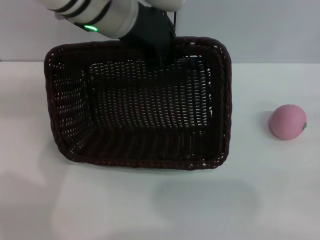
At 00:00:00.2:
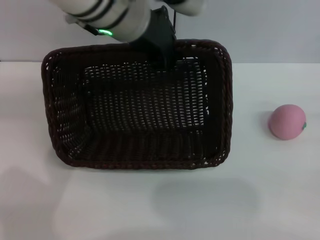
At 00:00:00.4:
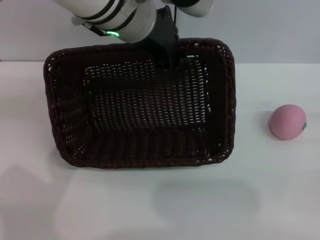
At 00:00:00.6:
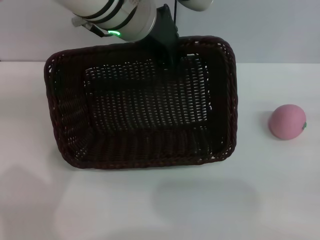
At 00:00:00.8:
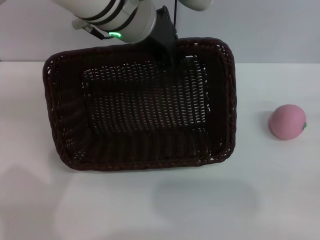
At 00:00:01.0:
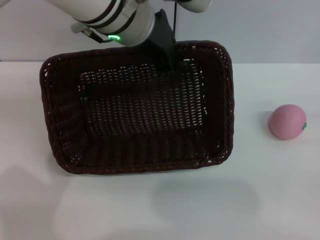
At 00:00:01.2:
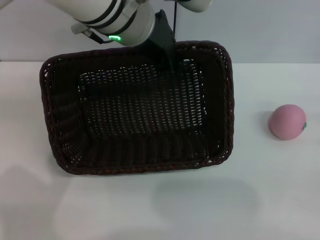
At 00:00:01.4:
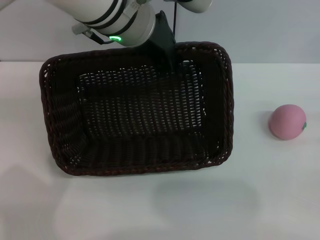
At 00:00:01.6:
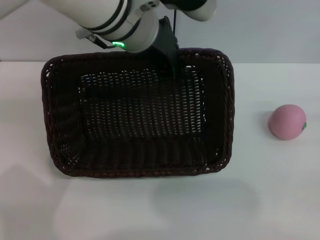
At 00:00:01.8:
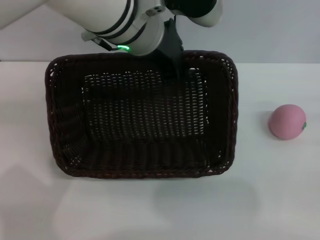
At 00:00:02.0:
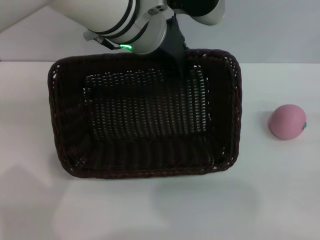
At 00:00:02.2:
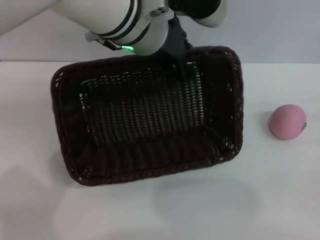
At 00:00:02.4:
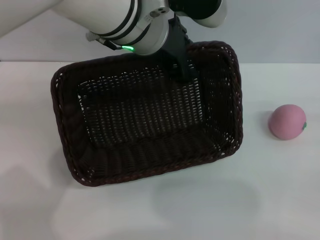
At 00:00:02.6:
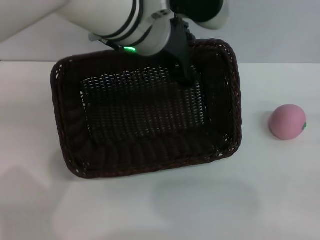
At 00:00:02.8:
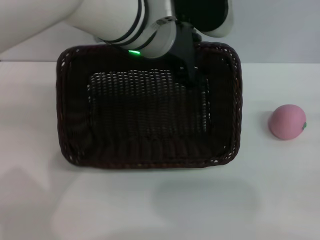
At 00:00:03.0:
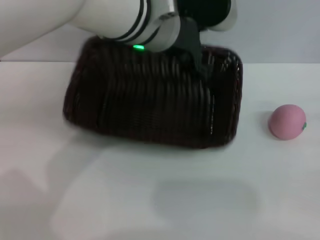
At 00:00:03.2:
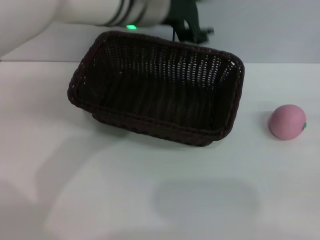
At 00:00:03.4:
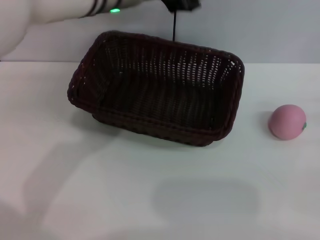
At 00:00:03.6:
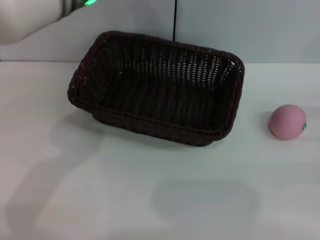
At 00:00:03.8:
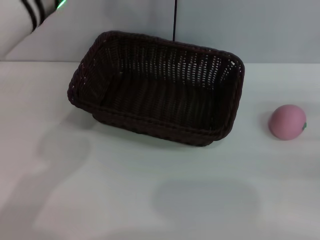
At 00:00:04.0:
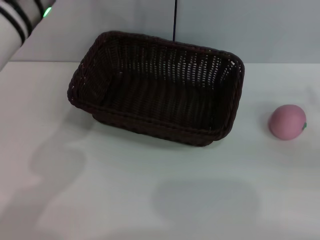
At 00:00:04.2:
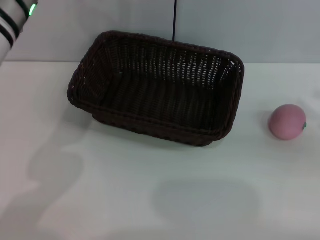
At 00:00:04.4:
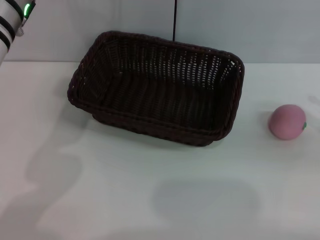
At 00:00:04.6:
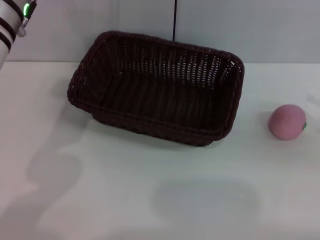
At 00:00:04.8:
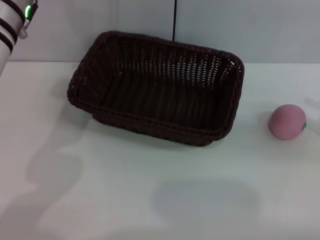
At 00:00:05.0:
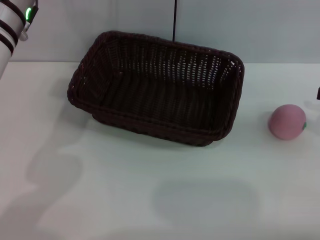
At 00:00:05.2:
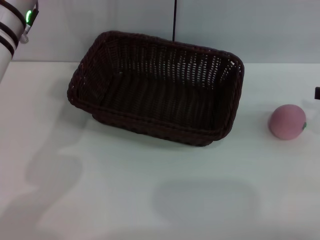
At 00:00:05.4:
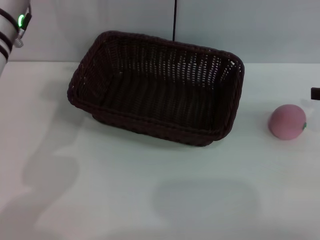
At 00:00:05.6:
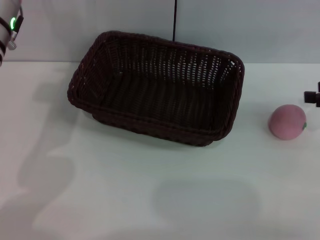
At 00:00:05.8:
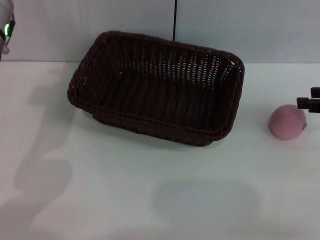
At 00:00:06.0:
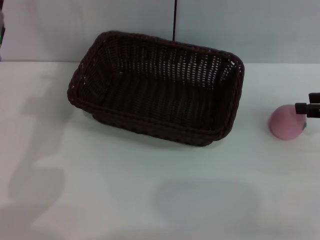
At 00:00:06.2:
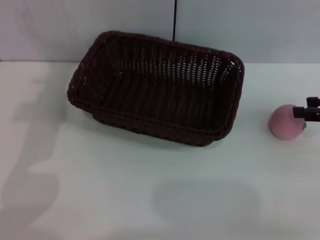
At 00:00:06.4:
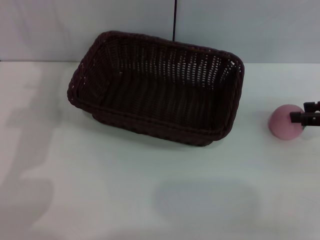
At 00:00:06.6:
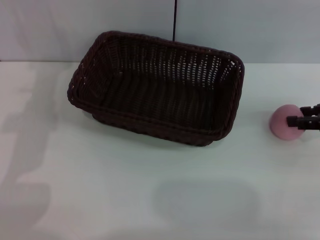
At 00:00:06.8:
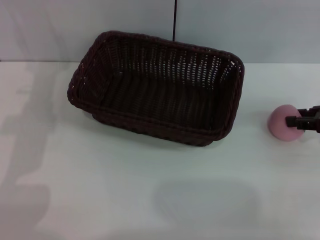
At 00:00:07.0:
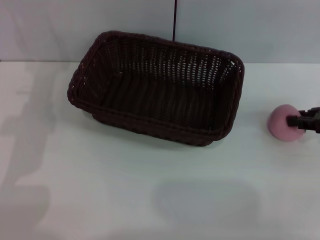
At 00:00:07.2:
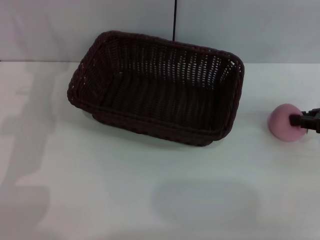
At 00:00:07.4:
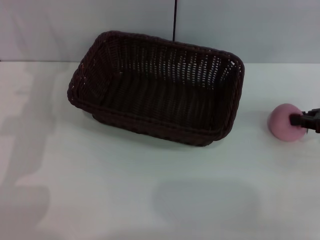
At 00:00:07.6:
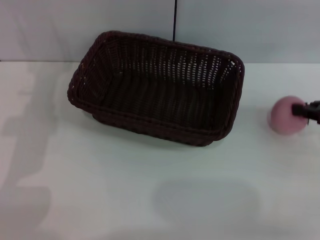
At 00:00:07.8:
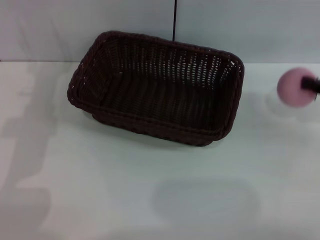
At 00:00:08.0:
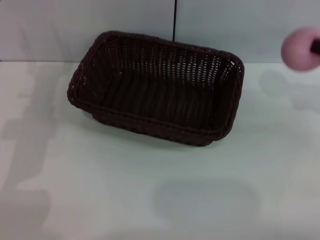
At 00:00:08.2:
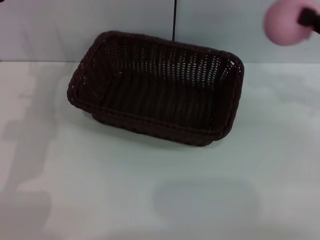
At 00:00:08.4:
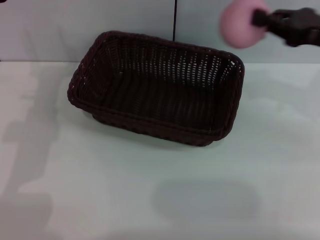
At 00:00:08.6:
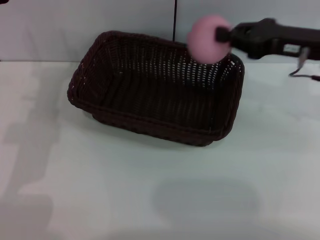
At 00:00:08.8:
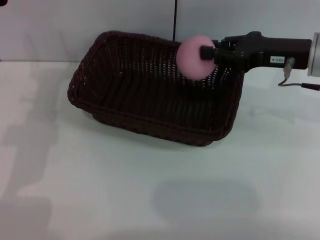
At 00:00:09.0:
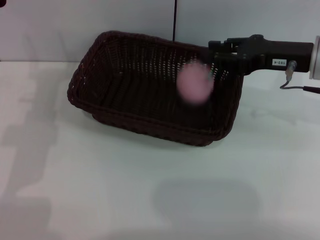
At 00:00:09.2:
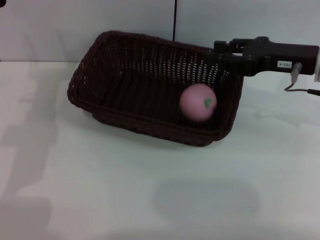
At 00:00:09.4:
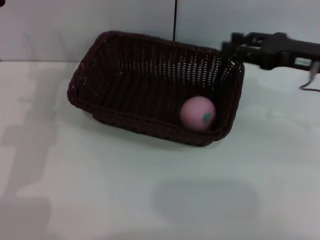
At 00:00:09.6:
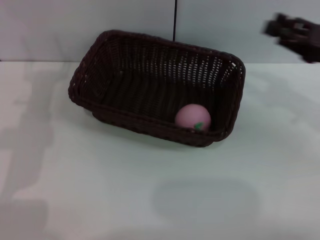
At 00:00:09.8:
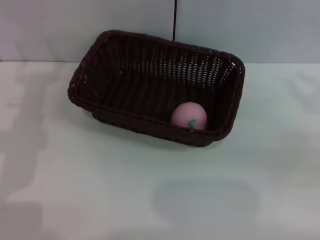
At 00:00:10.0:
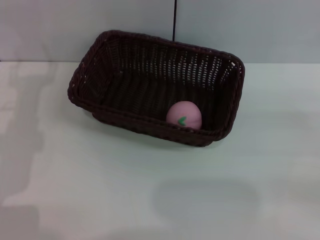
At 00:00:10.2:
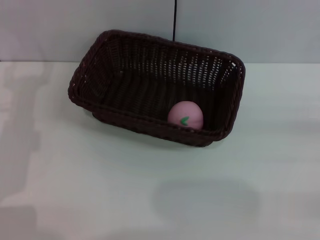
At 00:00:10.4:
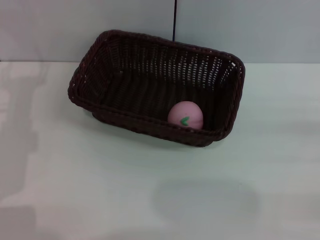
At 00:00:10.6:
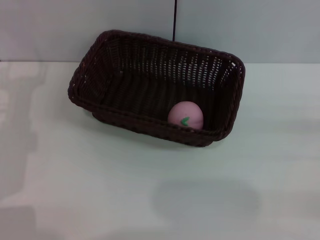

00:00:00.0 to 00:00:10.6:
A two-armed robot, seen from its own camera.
Step, 00:00:00.0 to 00:00:03.0: Place the basket in the center of view with left gripper.
Step, 00:00:03.4 to 00:00:07.4: Grasp the peach with right gripper.
Step, 00:00:07.6 to 00:00:09.0: Place the peach in the dark basket with right gripper.
00:00:00.0 to 00:00:01.6: The grippers move only a little.
00:00:01.6 to 00:00:03.0: The left gripper opens its fingers.
00:00:03.0 to 00:00:04.6: The right gripper goes approximately 10 cm upward. Meanwhile the left gripper is displaced to the left by some 15 cm.
00:00:04.6 to 00:00:06.0: The left gripper ends up about 5 cm from where it was; the right gripper is displaced forward by about 5 cm.
00:00:06.0 to 00:00:07.6: The right gripper closes up.
00:00:07.6 to 00:00:09.0: The right gripper heads to the left, covering some 10 cm.
00:00:09.0 to 00:00:10.6: The right gripper travels to the right and backward by some 25 cm, and opens its fingers.

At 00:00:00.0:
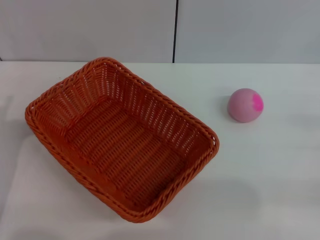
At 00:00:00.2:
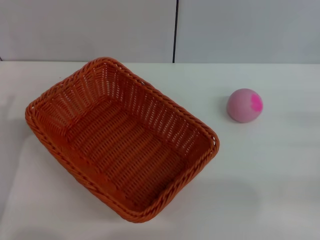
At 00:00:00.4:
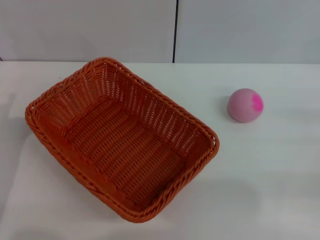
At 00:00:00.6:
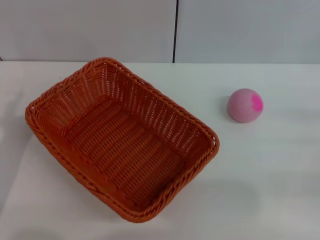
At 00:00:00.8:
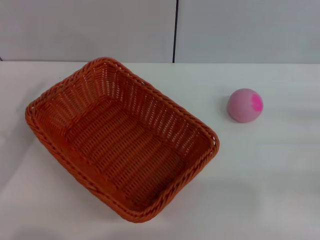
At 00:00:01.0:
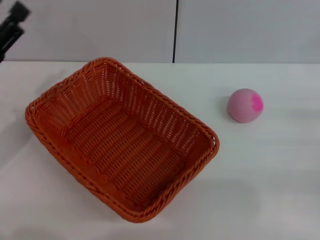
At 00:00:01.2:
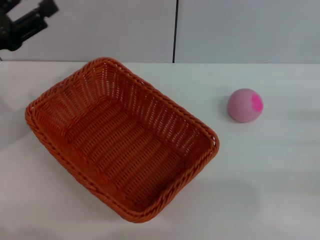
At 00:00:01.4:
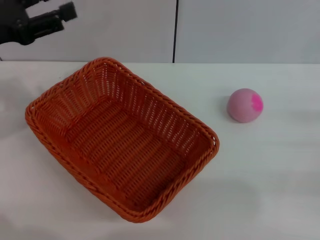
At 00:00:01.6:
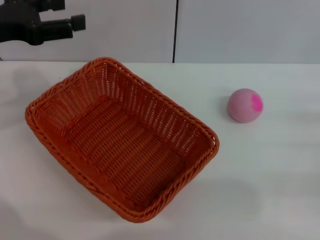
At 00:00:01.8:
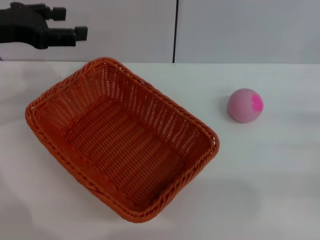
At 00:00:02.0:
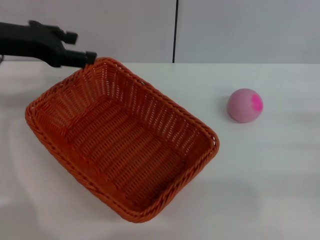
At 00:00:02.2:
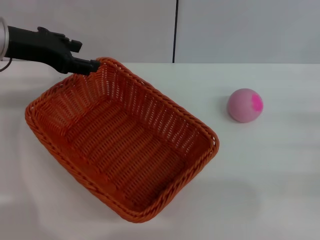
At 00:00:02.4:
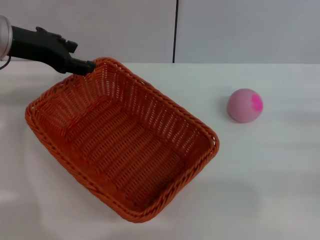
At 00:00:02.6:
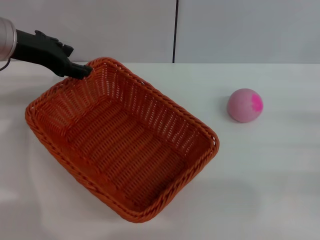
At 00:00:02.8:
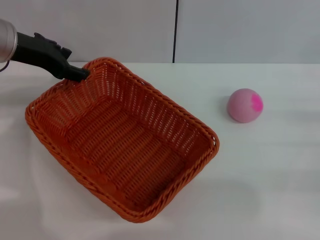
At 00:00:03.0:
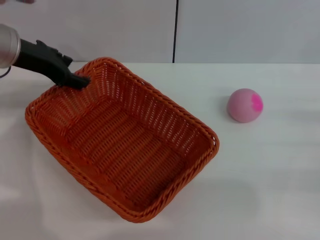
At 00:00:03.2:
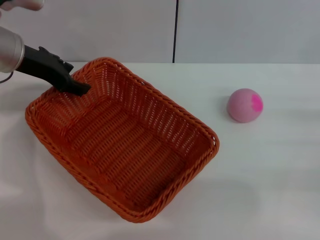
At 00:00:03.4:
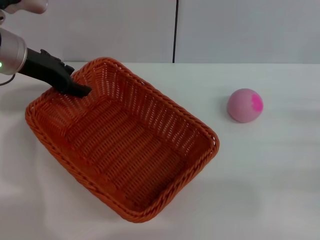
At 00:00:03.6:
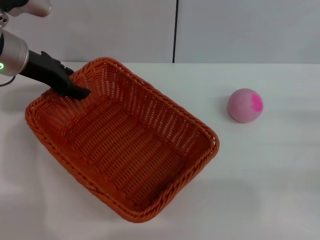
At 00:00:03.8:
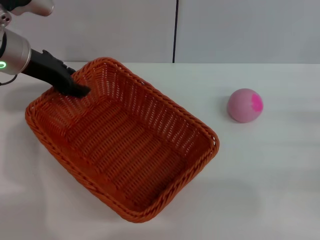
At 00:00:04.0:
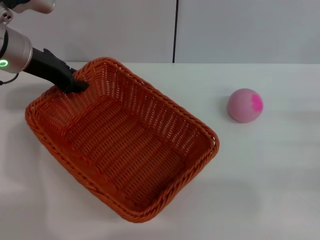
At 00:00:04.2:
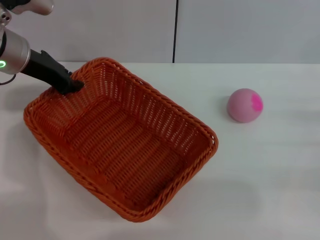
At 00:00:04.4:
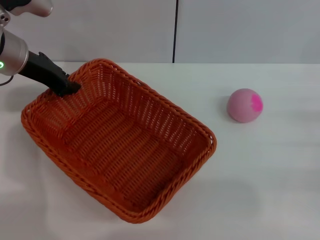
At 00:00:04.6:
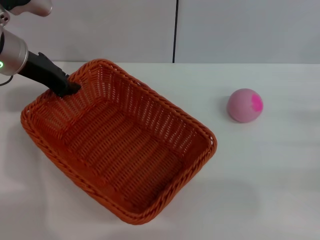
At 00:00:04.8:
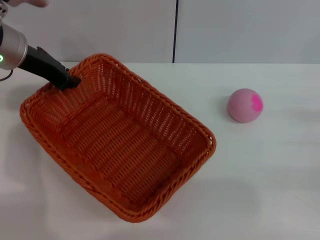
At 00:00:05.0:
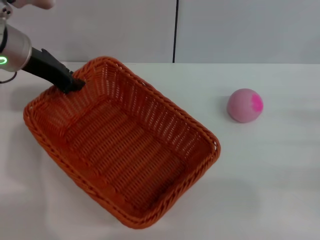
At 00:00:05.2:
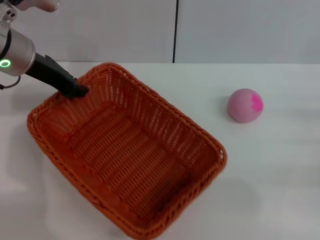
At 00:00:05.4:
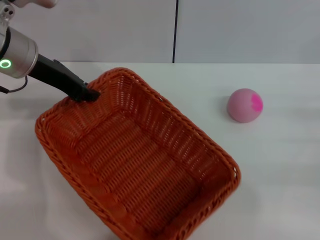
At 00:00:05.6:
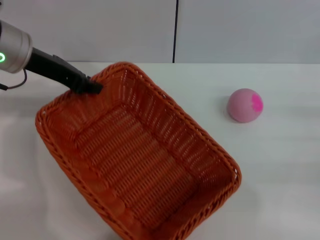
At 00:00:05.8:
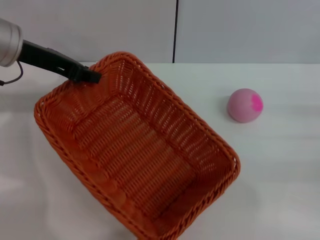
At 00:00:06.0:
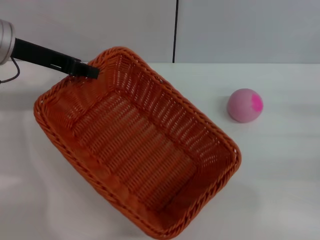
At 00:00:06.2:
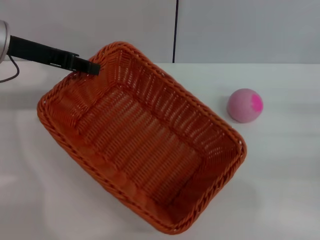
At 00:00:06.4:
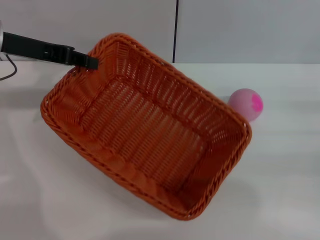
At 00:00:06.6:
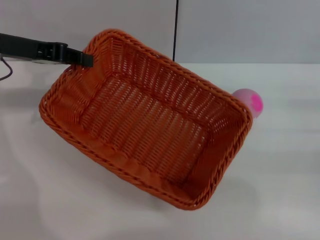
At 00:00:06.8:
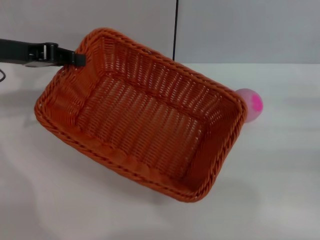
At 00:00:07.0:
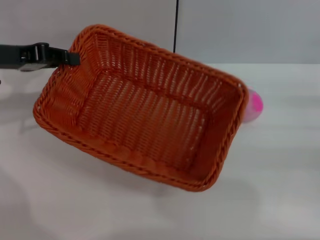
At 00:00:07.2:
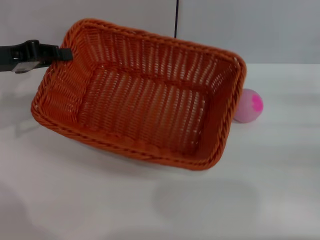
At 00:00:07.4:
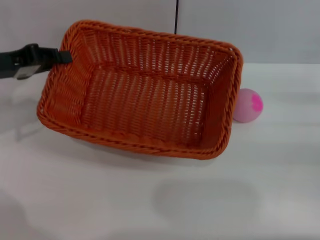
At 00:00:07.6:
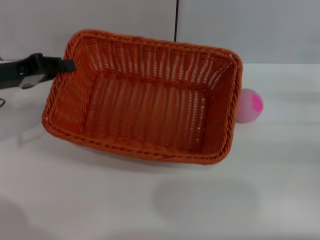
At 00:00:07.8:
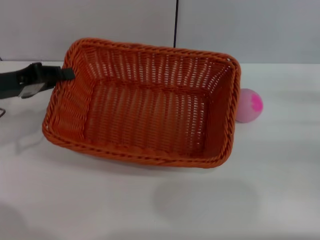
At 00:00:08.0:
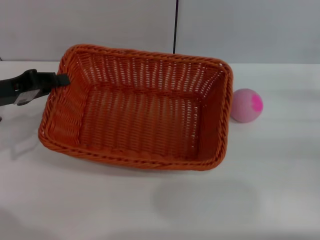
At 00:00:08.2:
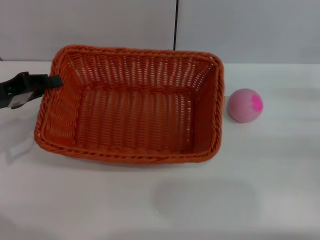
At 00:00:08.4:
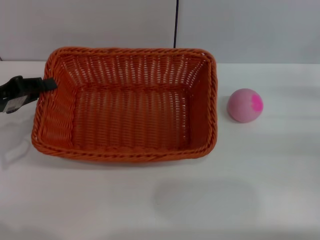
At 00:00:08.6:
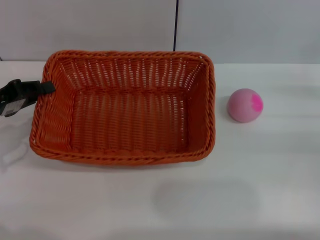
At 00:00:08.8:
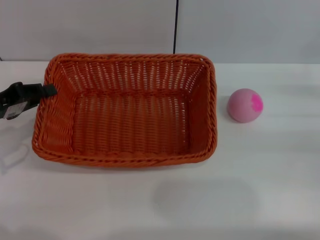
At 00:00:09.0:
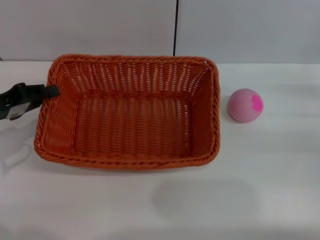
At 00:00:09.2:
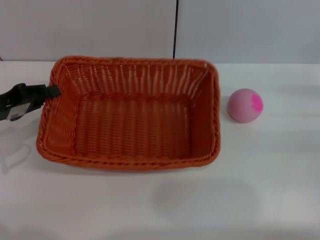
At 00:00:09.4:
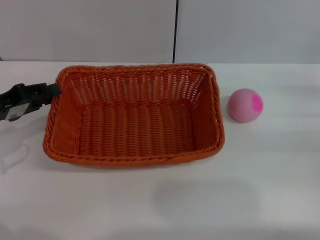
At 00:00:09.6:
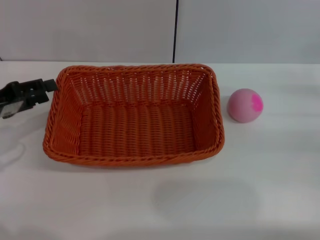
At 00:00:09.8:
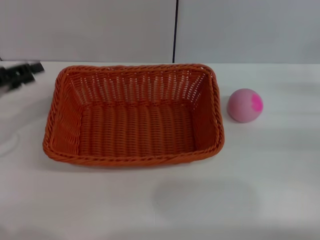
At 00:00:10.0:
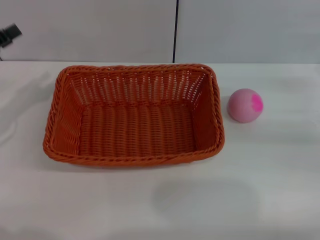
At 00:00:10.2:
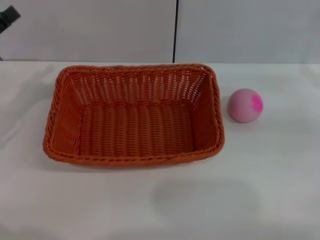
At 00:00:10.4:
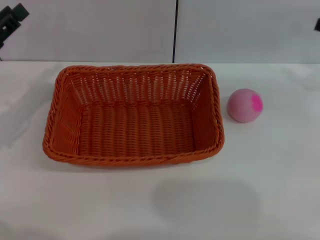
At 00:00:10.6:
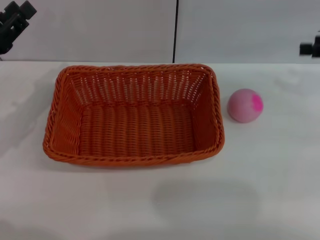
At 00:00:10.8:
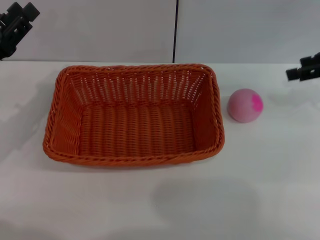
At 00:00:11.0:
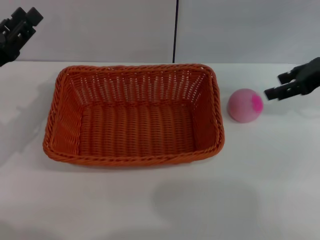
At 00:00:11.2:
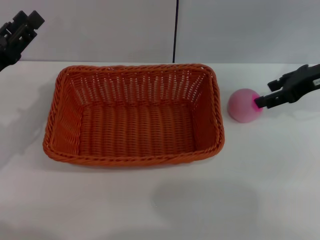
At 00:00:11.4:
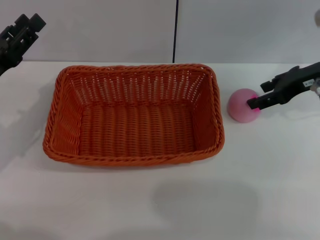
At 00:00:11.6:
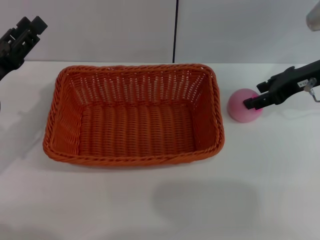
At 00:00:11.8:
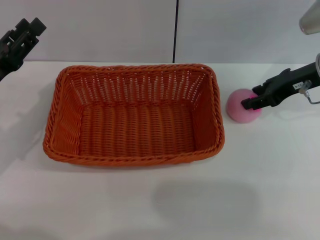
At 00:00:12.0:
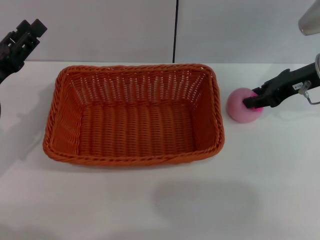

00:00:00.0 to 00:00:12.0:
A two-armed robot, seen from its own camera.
Step, 00:00:00.0 to 00:00:04.8: Pick up the light basket with the left gripper.
Step, 00:00:05.0 to 00:00:09.6: Place the light basket in the center of view with the right gripper.
00:00:00.0 to 00:00:01.6: The left gripper shifts roughly 20 cm upward and forward.
00:00:01.6 to 00:00:03.0: The left gripper shifts approximately 5 cm to the right.
00:00:03.0 to 00:00:04.4: The left gripper closes its fingers.
00:00:06.0 to 00:00:07.6: The left gripper shifts some 10 cm downward and to the left.
00:00:07.6 to 00:00:09.0: The left gripper shifts by some 5 cm.
00:00:09.0 to 00:00:10.4: The right gripper travels upward and forward by roughly 10 cm; the left gripper opens its fingers.
00:00:10.4 to 00:00:12.0: The right gripper is displaced to the left by about 10 cm.
